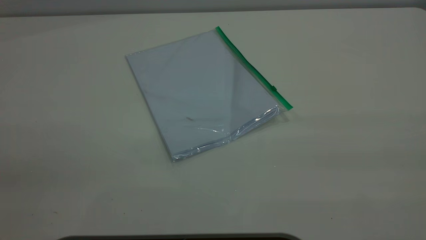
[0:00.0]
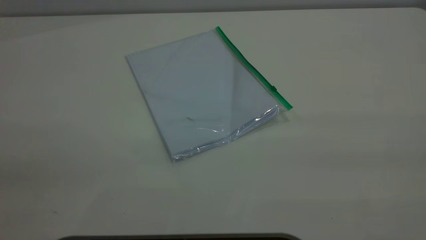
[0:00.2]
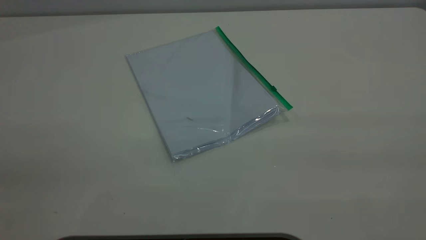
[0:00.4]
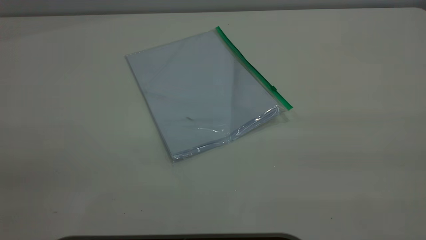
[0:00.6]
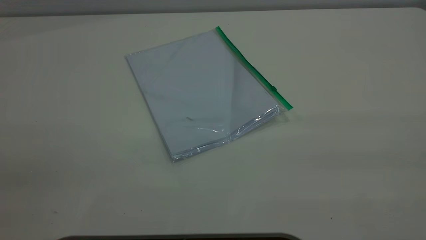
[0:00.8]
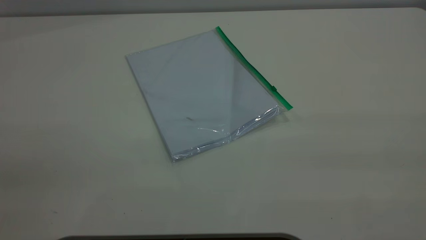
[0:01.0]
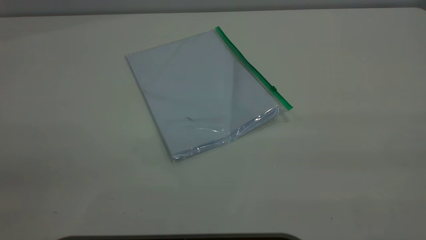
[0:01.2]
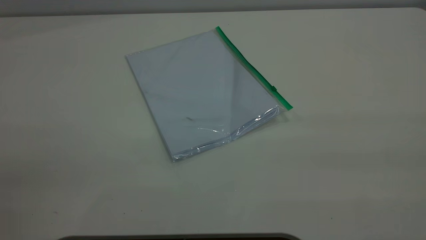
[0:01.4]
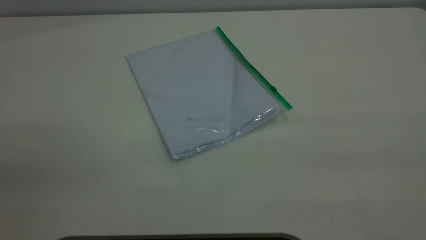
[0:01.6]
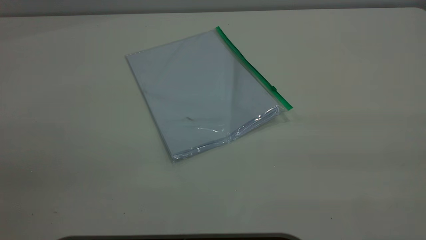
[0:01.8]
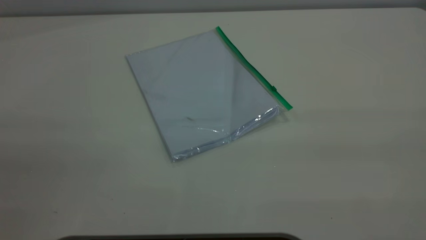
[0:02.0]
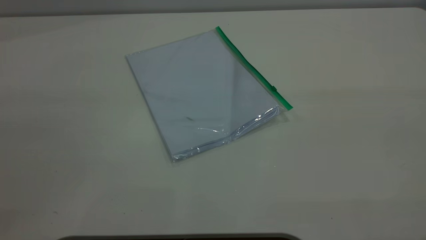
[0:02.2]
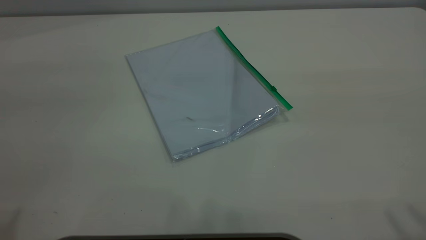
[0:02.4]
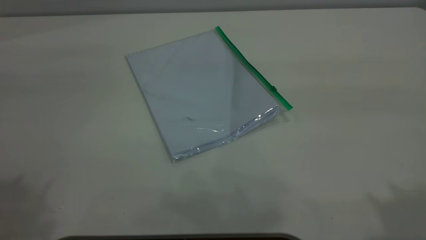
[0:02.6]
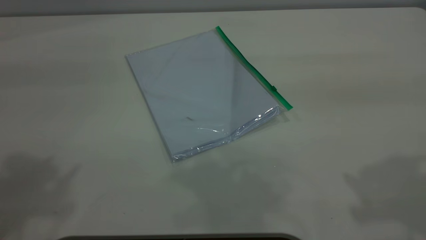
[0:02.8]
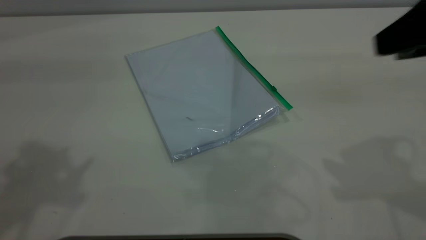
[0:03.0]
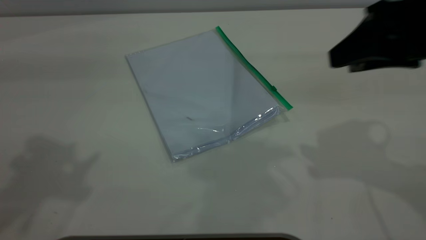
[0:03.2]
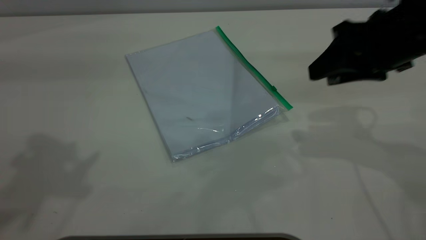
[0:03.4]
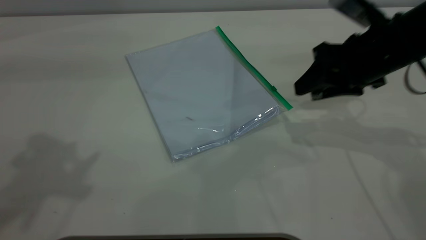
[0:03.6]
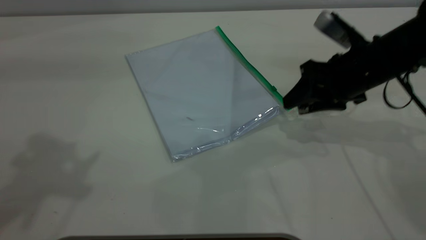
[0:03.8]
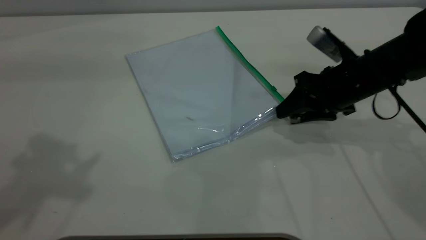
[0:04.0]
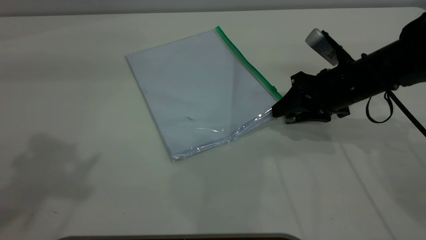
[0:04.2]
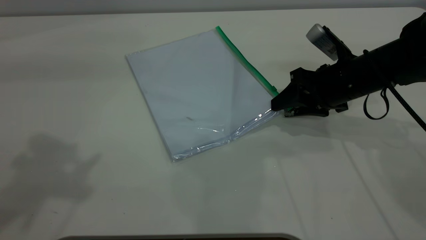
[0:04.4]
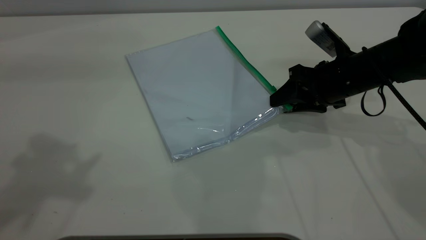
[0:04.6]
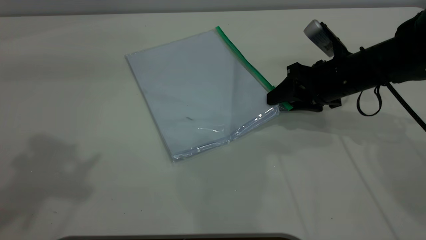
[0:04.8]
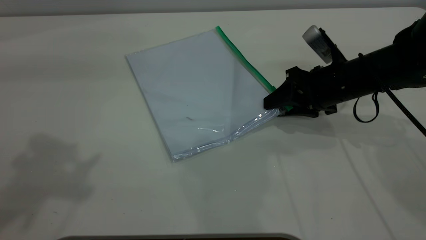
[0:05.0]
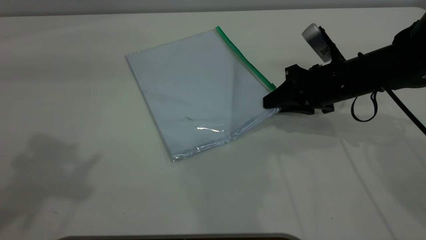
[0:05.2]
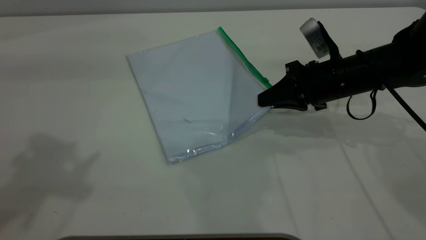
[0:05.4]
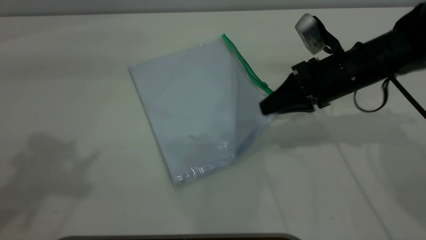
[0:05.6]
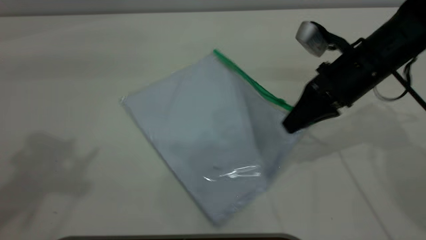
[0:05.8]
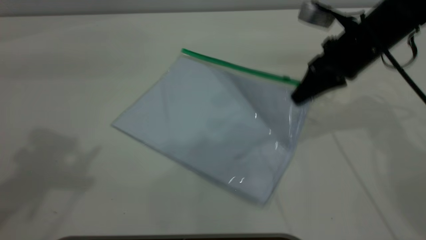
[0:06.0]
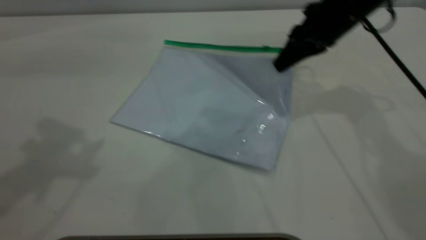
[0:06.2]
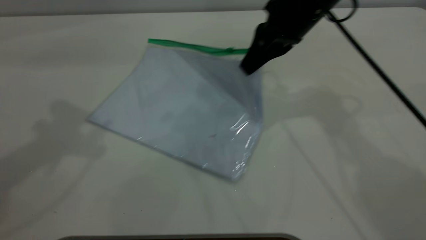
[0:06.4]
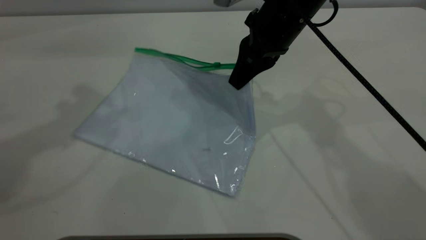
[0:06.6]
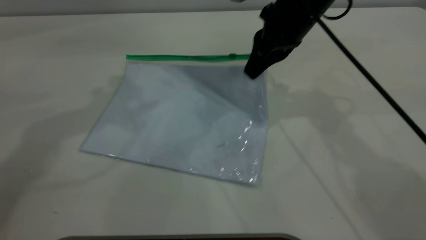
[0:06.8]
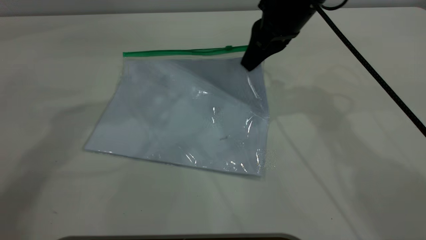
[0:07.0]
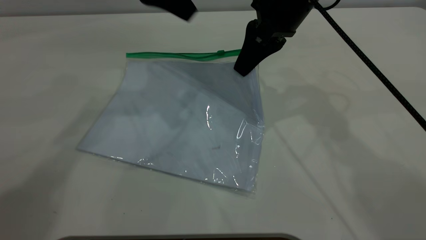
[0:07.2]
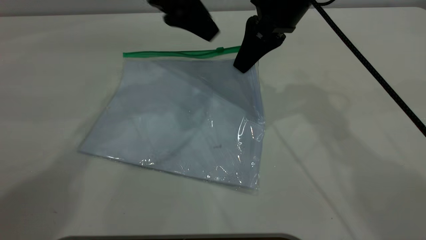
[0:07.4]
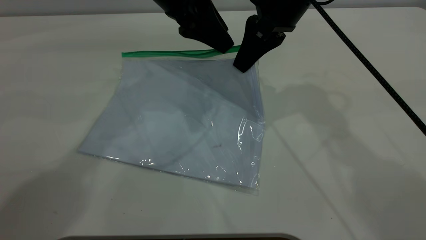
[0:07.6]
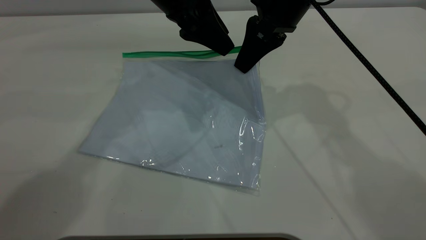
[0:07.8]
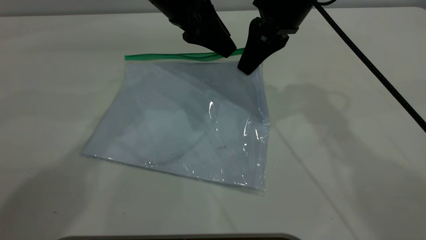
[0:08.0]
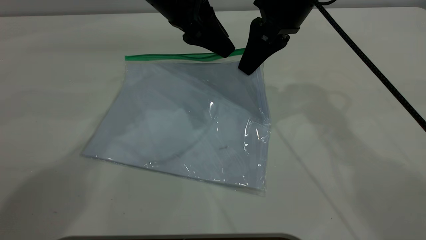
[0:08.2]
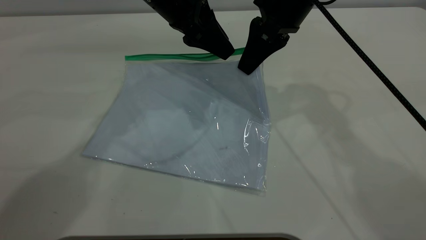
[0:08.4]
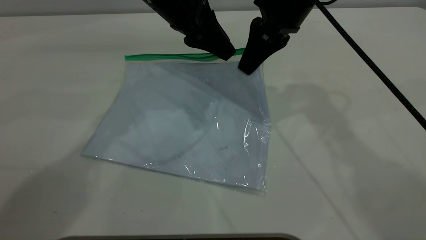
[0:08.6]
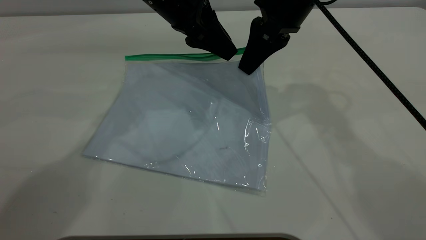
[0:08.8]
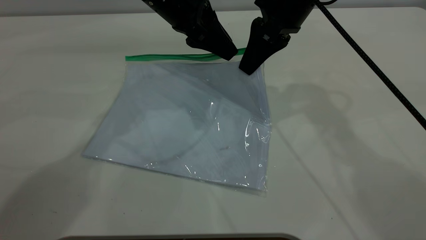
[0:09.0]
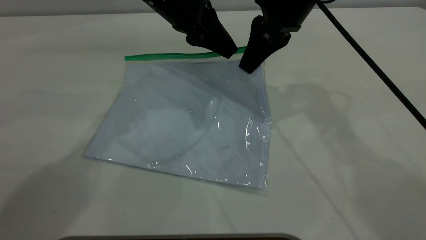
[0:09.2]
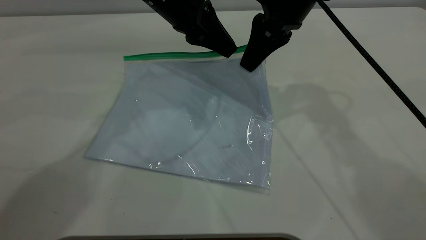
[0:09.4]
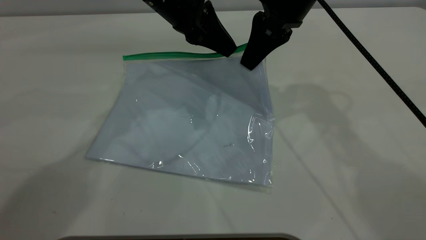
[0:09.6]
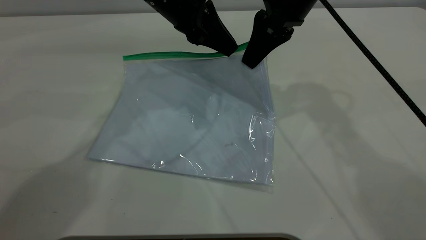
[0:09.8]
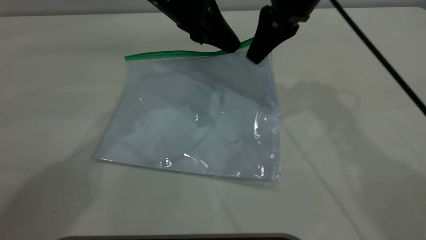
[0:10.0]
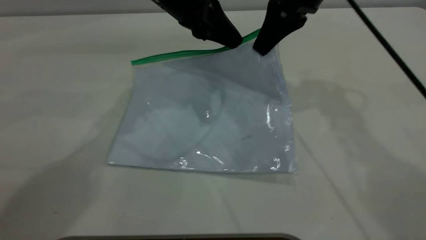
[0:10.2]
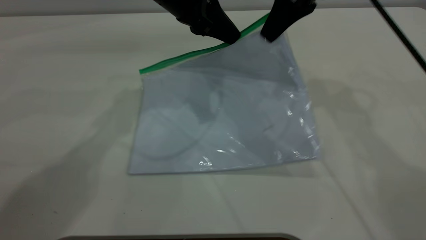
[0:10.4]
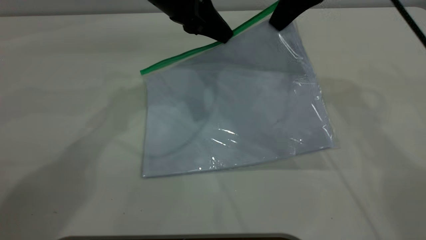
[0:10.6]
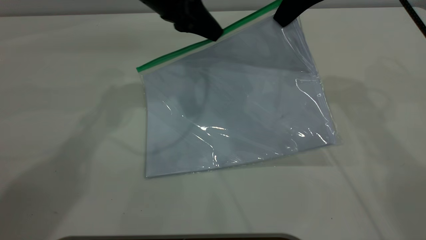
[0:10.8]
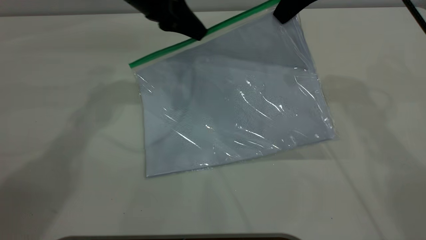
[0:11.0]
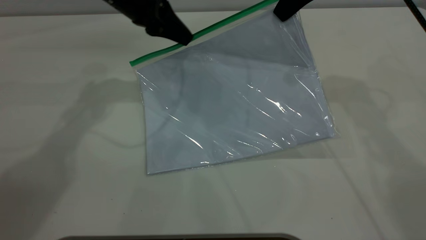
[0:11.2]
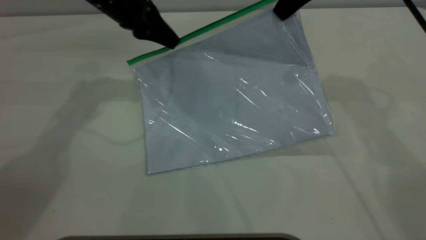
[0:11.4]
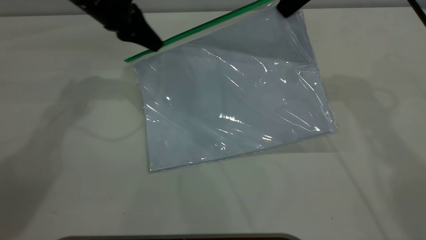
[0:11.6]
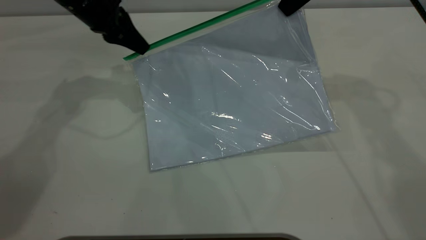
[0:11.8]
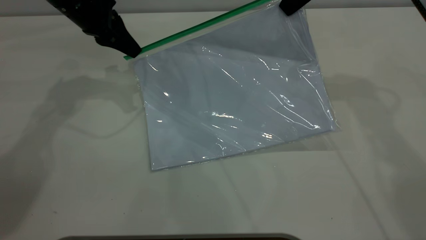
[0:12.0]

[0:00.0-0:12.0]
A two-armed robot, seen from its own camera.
Step, 0:00.0 to 0:05.4: Pick up the transparent plastic bag with the right gripper.
0:00.0 to 0:01.6: The two grippers keep their place.
0:01.6 to 0:03.0: The right gripper goes some 25 cm forward and downward, and opens its fingers.
0:03.0 to 0:04.4: The right gripper travels downward and forward by approximately 25 cm.
0:04.4 to 0:06.0: The right gripper shifts about 5 cm upward, and closes.
0:06.0 to 0:07.6: The right gripper heads to the left and upward, covering about 10 cm. Meanwhile the left gripper shifts roughly 30 cm to the right, forward and downward.
0:07.6 to 0:09.0: There are only small adjustments of the grippers.
0:09.0 to 0:10.4: The right gripper moves some 5 cm. Meanwhile the left gripper closes.
0:10.4 to 0:12.0: The left gripper shifts roughly 15 cm to the left.

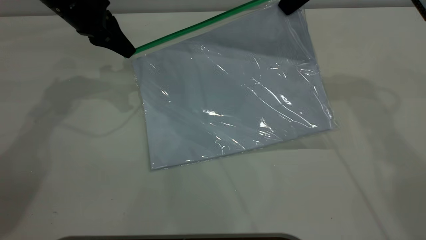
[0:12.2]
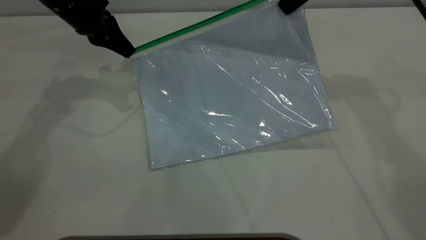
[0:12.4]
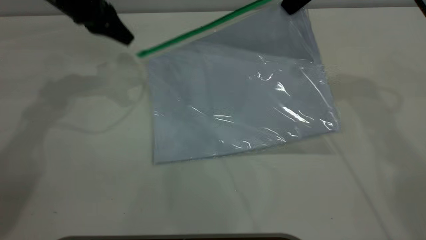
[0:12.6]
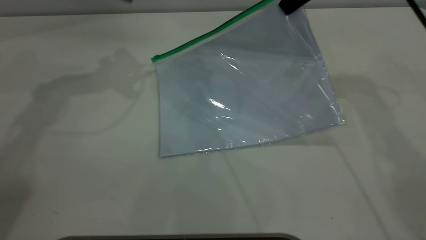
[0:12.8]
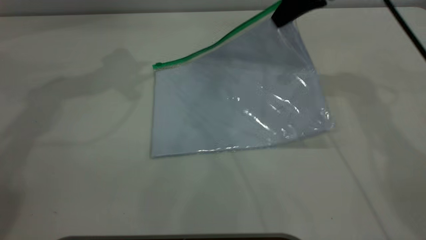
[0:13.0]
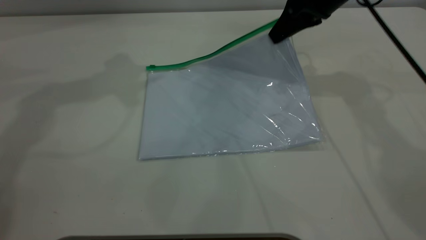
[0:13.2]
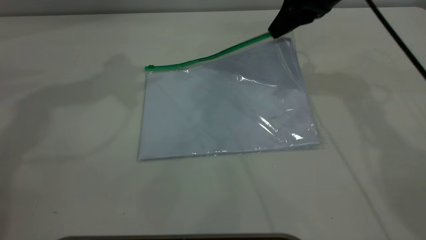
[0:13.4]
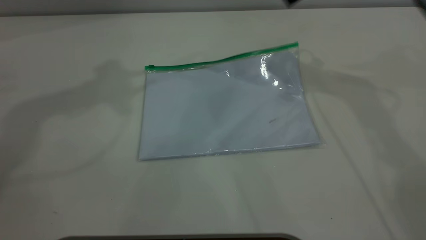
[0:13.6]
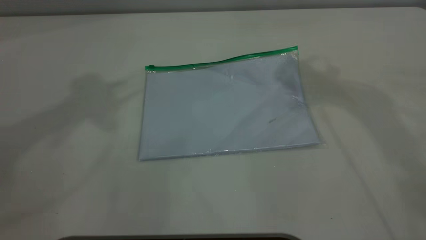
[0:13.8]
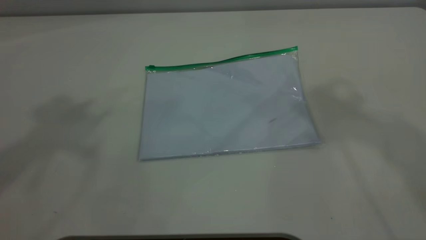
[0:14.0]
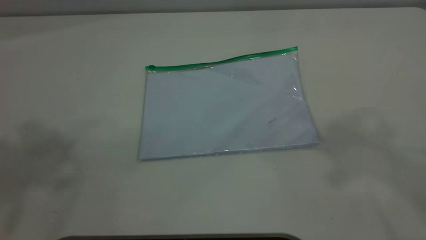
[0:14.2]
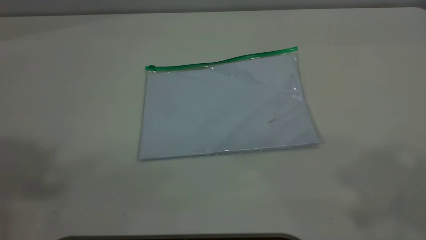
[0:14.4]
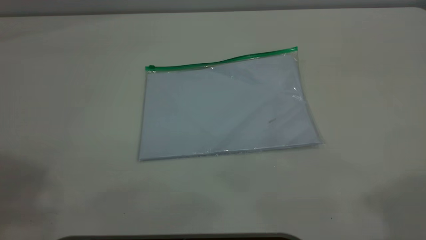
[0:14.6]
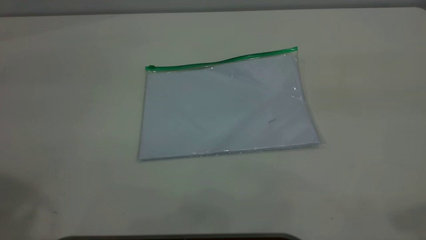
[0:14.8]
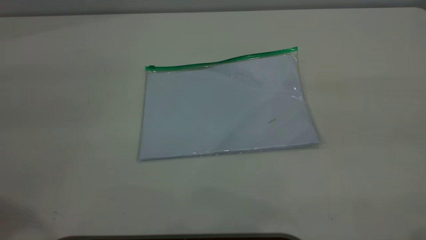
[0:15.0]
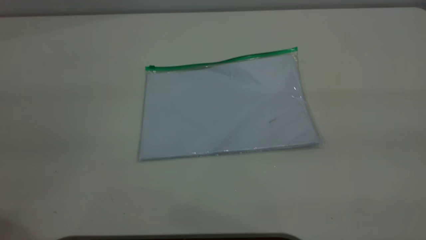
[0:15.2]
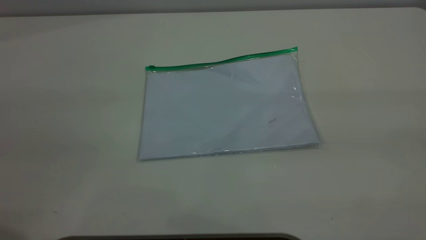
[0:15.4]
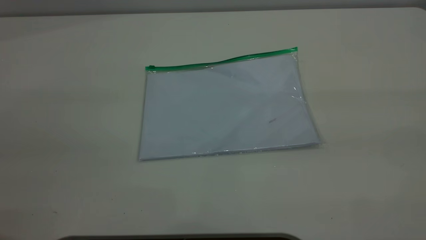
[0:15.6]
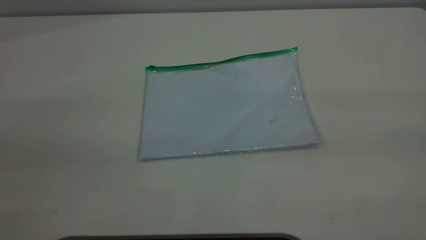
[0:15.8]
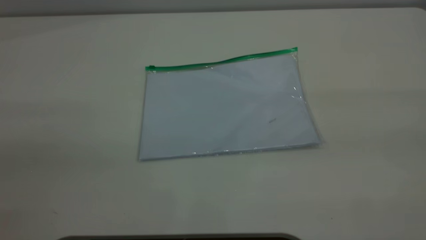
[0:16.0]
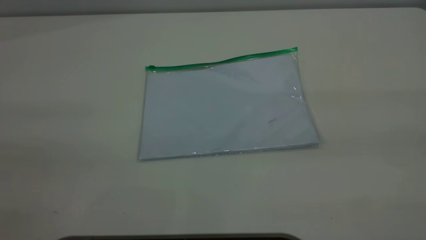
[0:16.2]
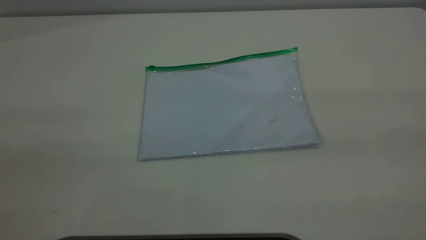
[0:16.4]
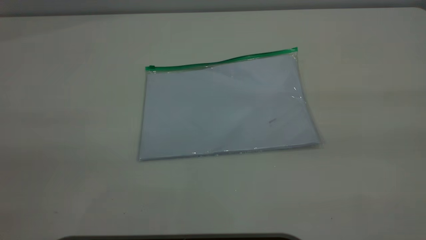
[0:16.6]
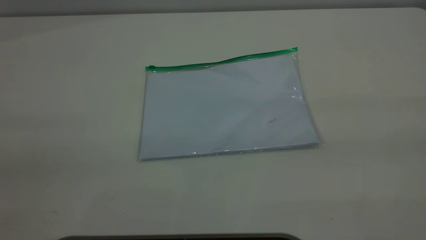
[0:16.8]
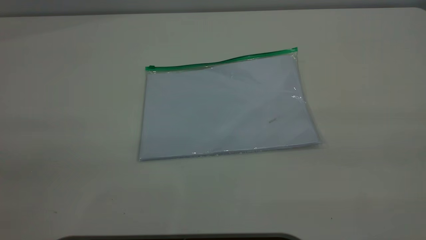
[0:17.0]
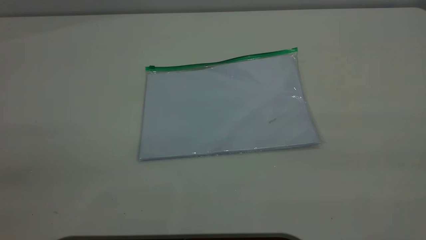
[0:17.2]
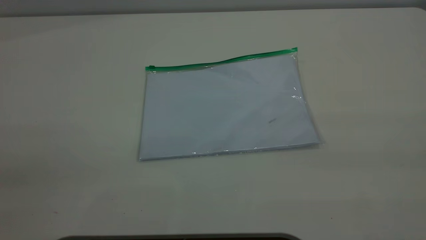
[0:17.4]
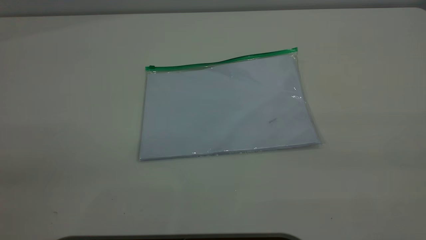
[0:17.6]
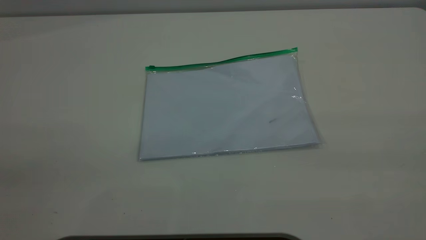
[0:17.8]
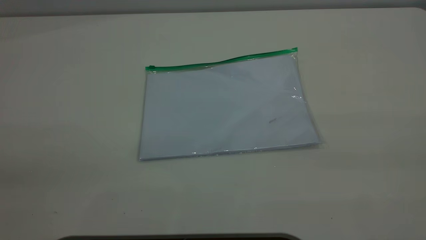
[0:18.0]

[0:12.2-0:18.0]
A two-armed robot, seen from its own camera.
Step, 0:12.6 to 0:13.4: Place the transparent plastic bag.
0:12.2 to 0:13.6: The right gripper moves roughly 5 cm downward and comes back, and opens, while the left gripper goes some 25 cm upward, and opens its fingers.
0:13.6 to 0:15.0: Both grippers move backward, about 30 cm.
